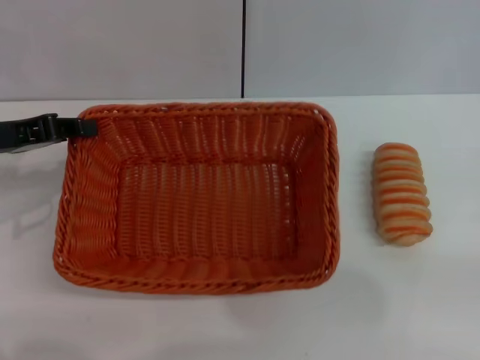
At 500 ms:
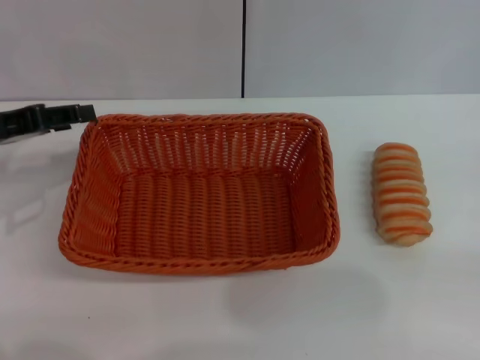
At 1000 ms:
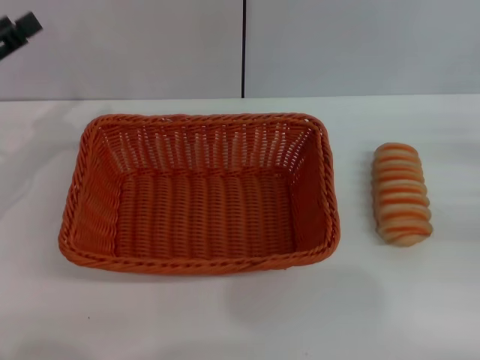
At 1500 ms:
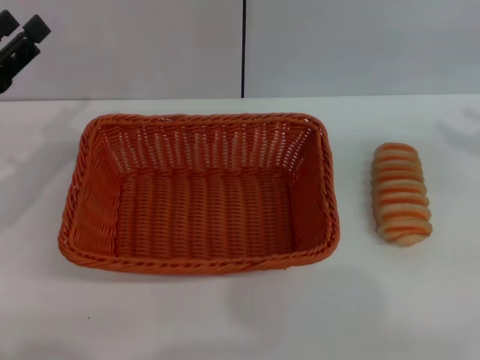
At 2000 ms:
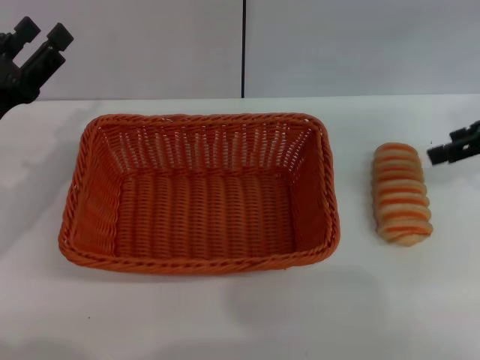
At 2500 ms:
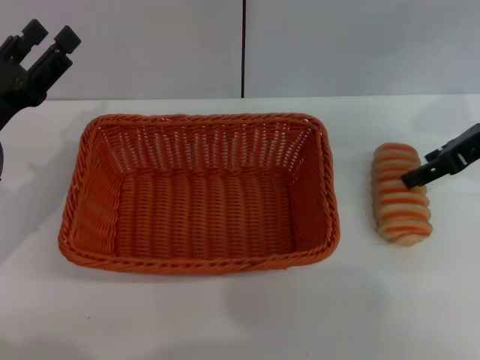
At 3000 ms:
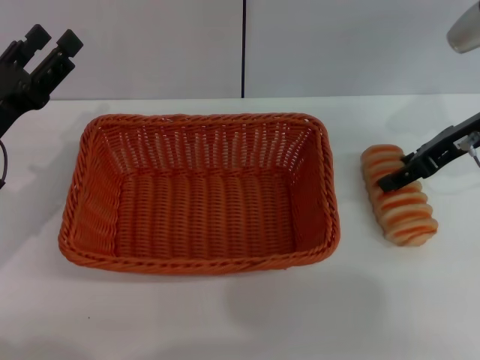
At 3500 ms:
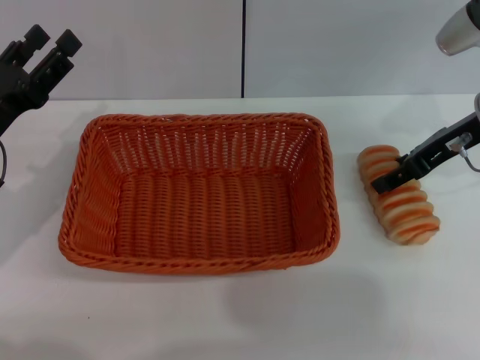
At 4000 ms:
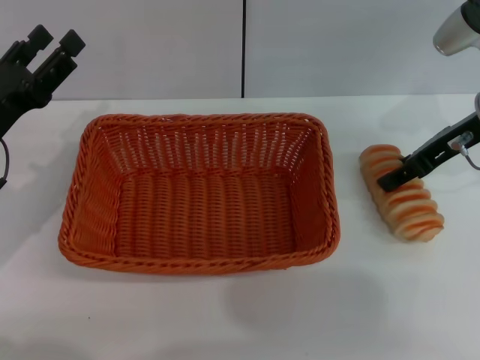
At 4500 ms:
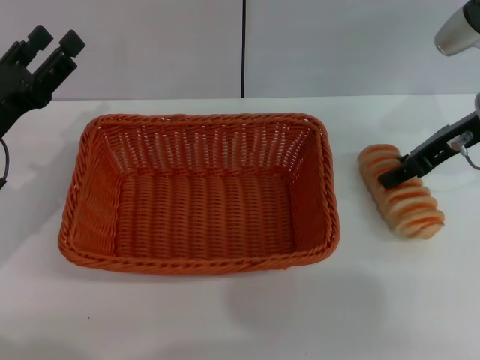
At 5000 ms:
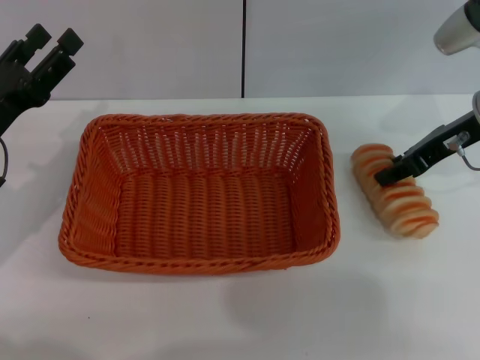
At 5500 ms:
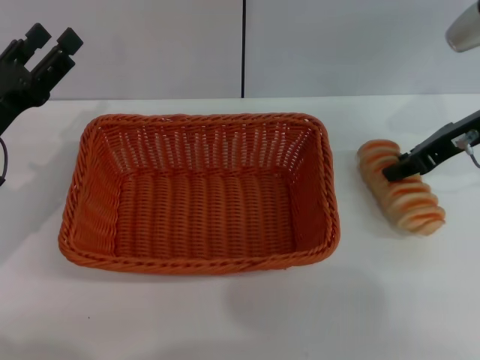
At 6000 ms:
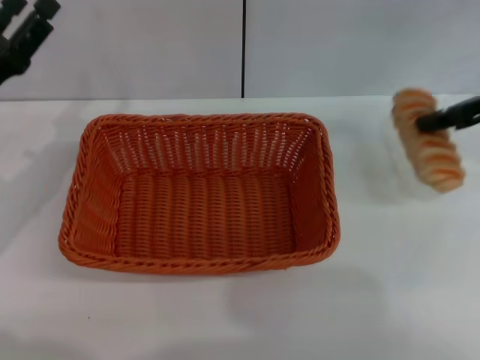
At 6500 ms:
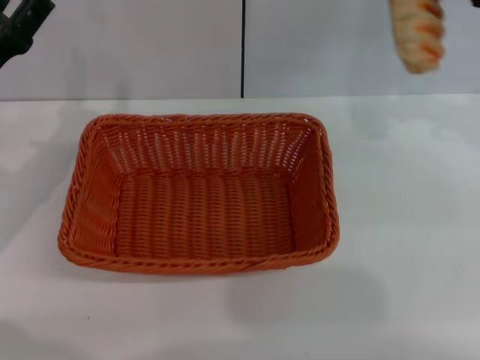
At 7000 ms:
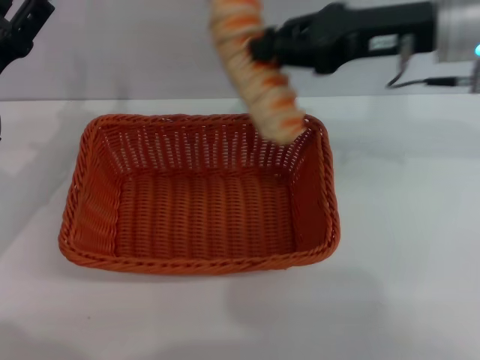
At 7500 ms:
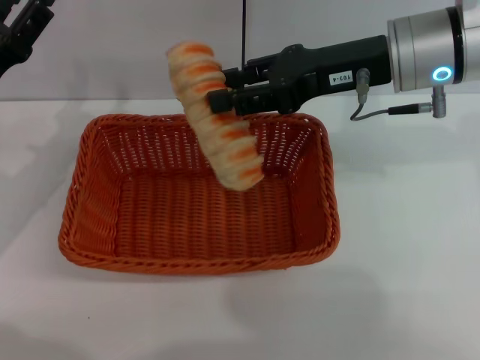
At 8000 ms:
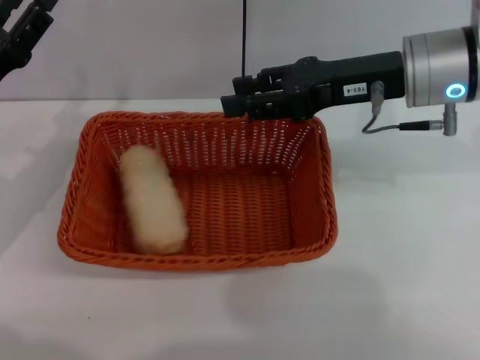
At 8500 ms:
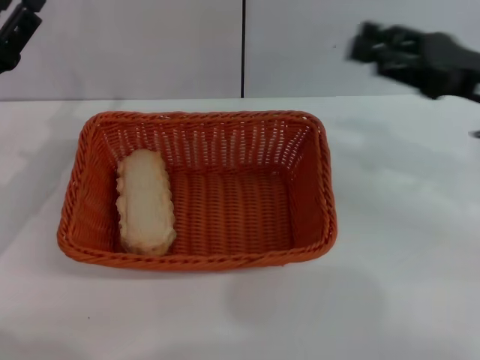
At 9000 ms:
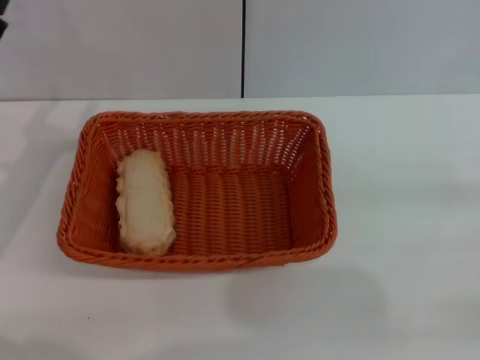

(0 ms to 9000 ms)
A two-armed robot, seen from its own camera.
Step, 0 ms - 1500 ms: Place the light basket in the center of view with the left gripper.
Step, 2000 ms - 5500 ms: Pick up the long bread with the right gripper.
Step, 6000 ms - 7500 ms: Place the long bread into the light basket with the right gripper.
0 ms - 2000 ms: The right gripper goes approximately 20 cm upward, forward and to the left, and opens, while the left gripper moves downward, some 5 cm, and opens.
2000 ms - 4500 ms: The right gripper shifts approximately 10 cm to the left, and closes.
4500 ms - 7000 ms: The right gripper goes approximately 10 cm upward and to the left, and closes.
7000 ms - 9000 ms: The right gripper moves to the right, backward and downward, some 30 cm, and opens up.
